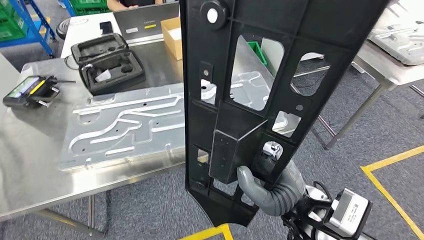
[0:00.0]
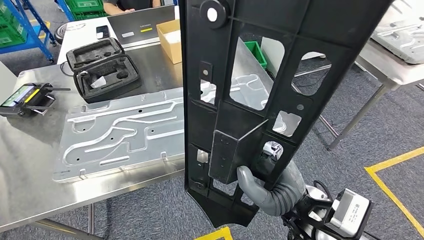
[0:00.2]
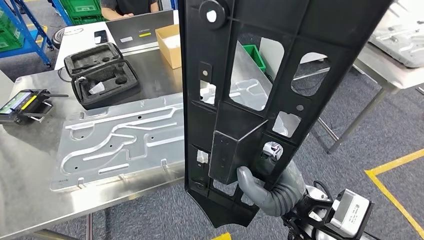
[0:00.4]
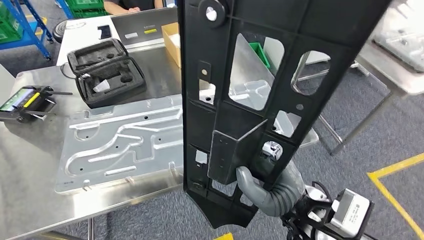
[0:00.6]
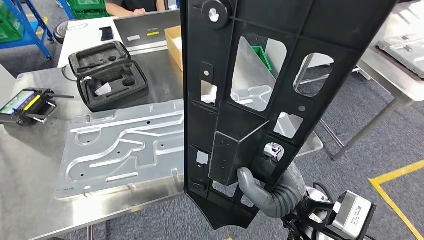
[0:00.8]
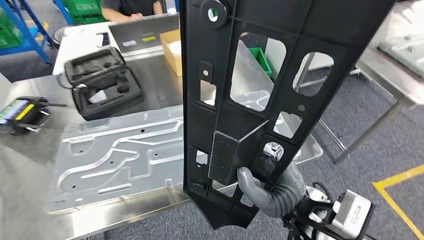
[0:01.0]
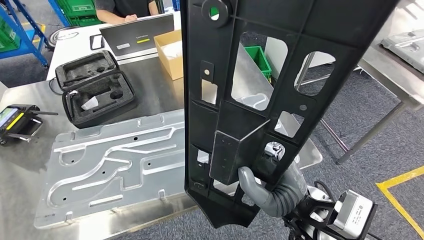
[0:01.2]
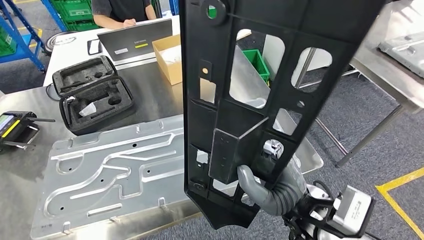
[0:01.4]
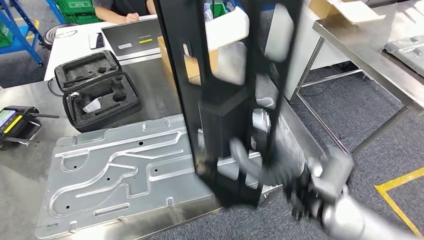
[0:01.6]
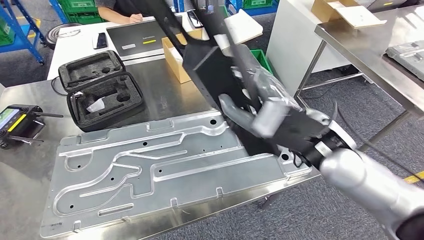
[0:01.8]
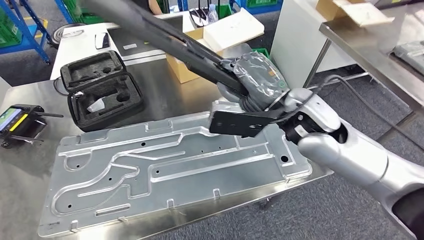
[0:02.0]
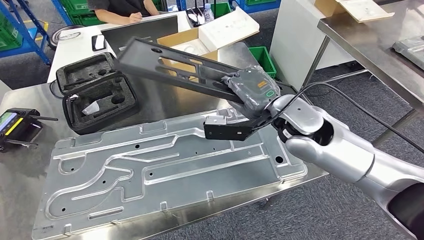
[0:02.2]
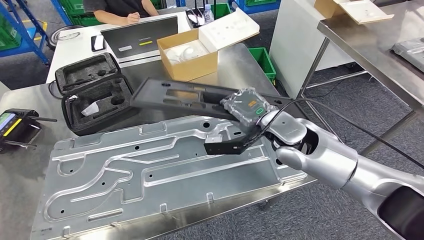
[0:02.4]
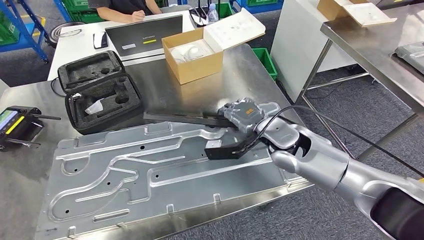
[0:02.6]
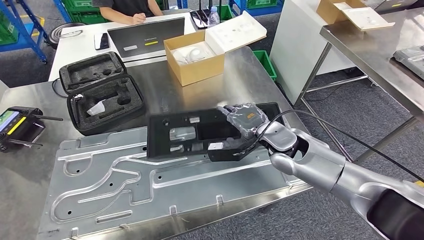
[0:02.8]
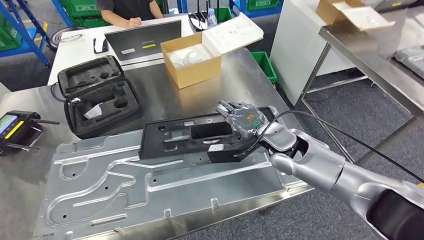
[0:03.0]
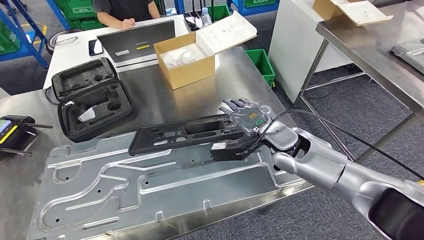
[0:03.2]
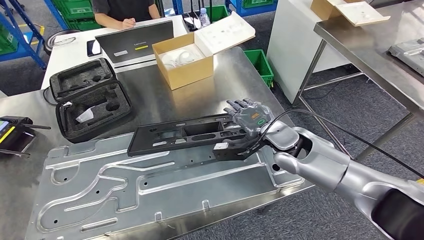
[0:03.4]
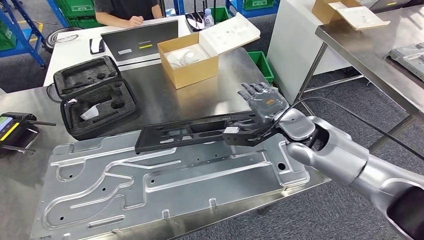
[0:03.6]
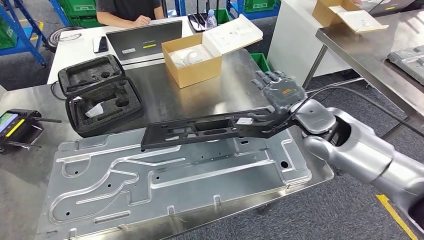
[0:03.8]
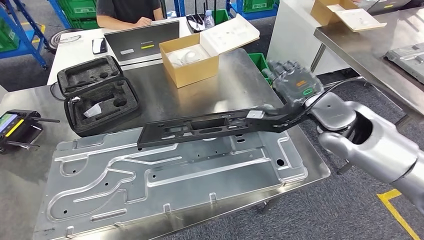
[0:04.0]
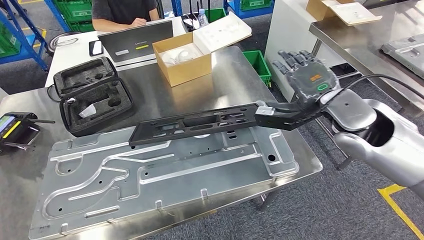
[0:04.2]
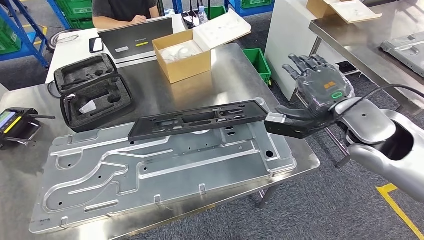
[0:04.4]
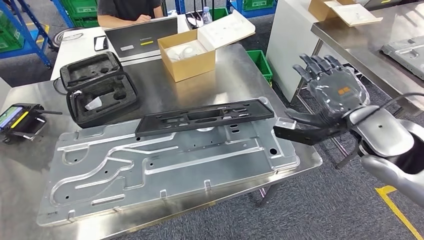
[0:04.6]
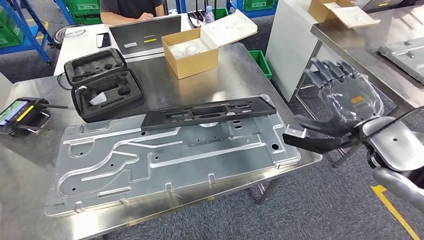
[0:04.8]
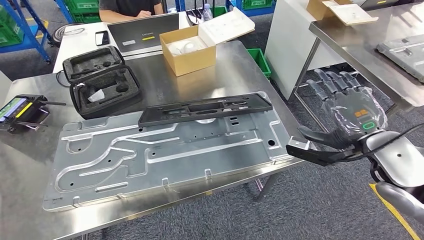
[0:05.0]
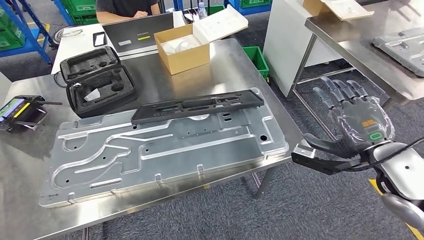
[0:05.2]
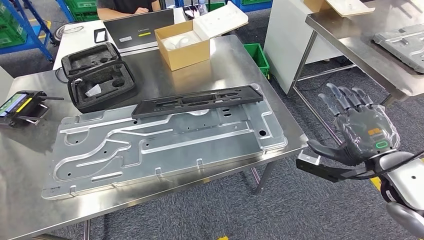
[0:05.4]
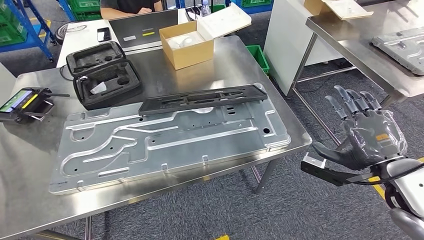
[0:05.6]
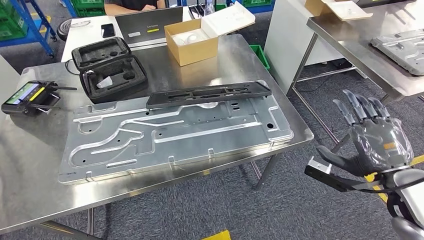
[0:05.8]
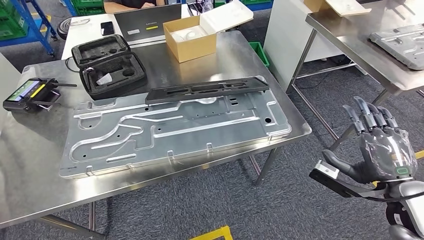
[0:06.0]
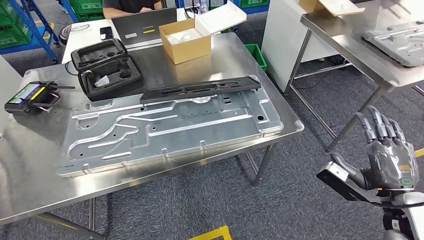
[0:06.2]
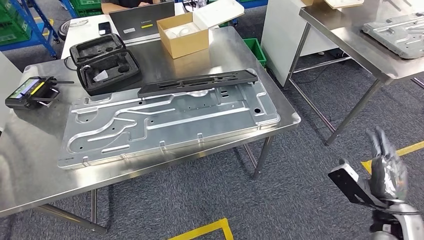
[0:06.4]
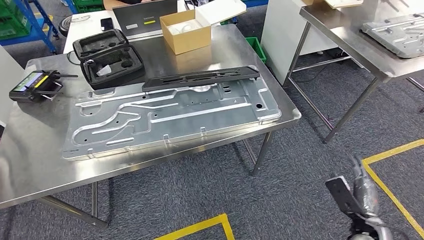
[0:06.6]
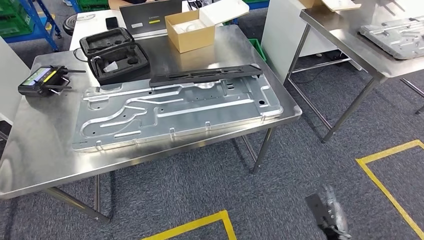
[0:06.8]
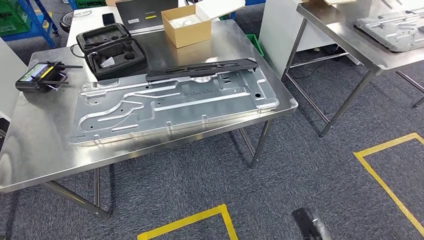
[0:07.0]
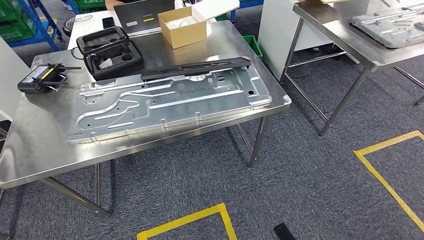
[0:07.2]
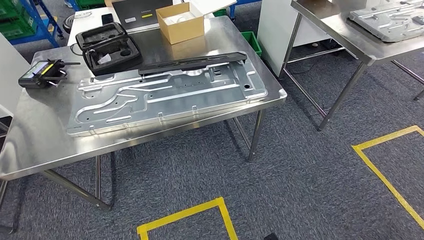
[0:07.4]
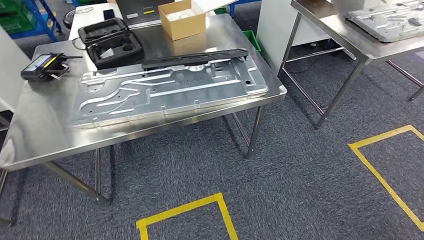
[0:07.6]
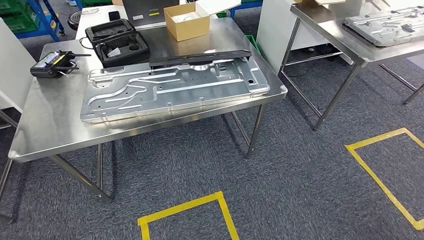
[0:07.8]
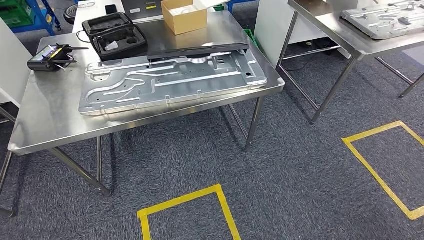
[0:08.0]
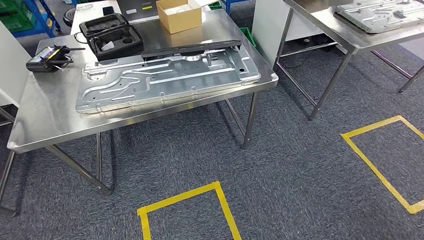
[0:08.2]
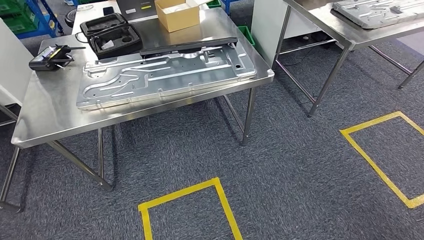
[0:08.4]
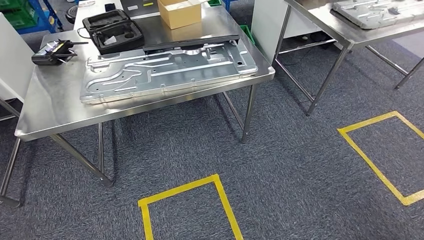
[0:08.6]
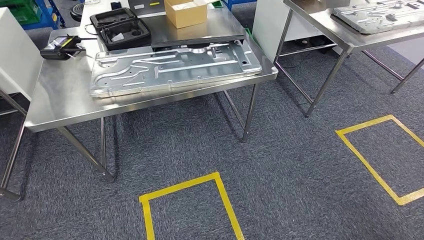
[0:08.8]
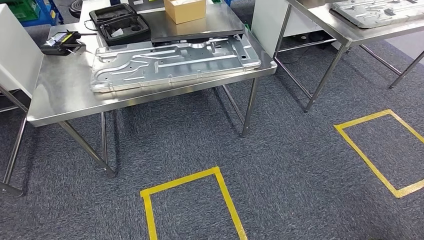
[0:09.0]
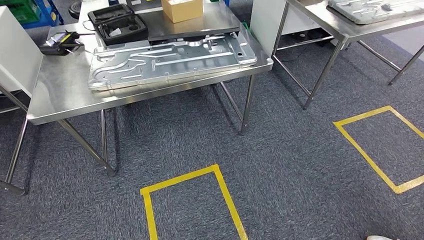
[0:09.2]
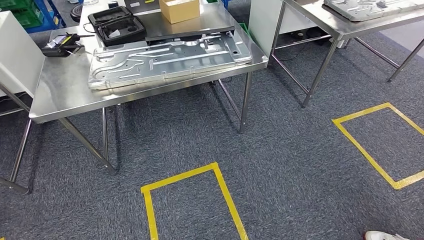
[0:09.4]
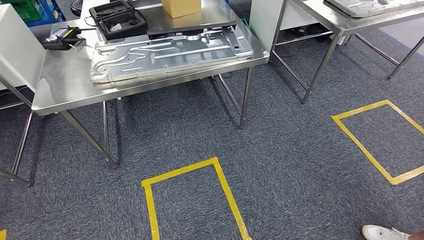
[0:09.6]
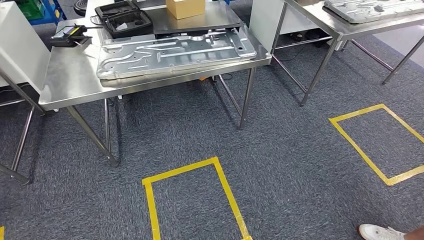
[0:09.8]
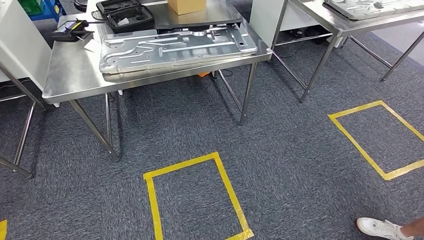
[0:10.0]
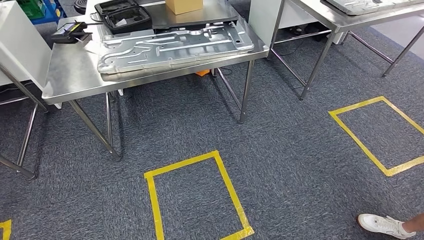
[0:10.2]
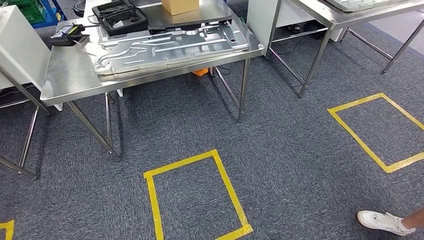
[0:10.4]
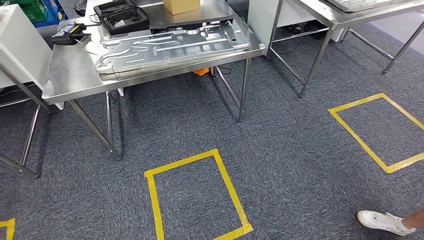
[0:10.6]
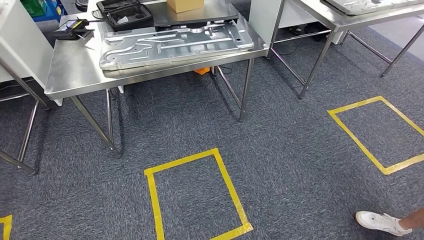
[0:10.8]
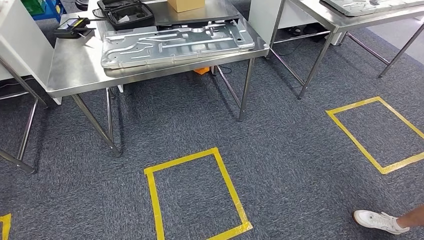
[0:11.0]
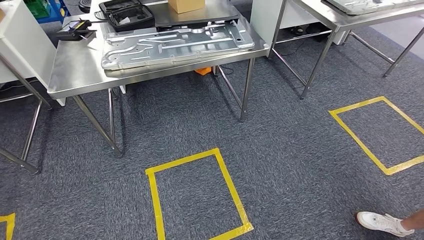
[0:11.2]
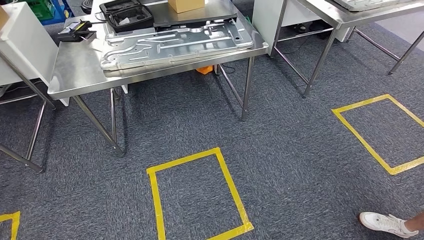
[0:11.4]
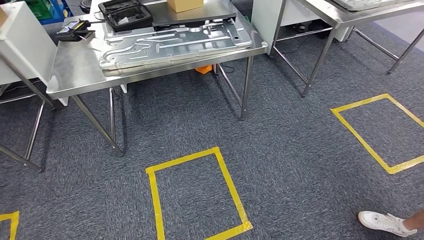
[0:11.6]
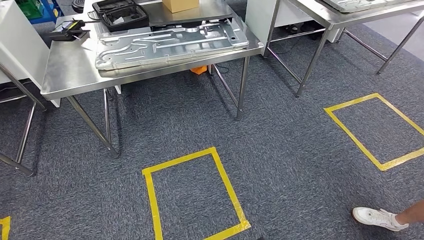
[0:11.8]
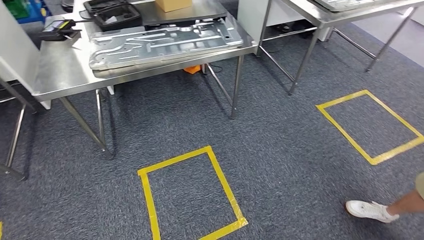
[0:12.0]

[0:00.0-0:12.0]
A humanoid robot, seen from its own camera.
Step, 0:00.0 to 0:06.4: Insert the large parts into the corresponding slots on the workbench.

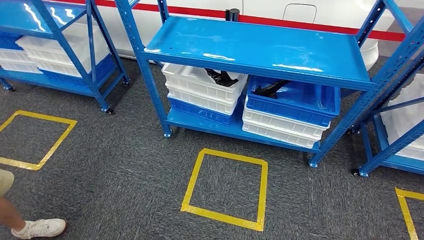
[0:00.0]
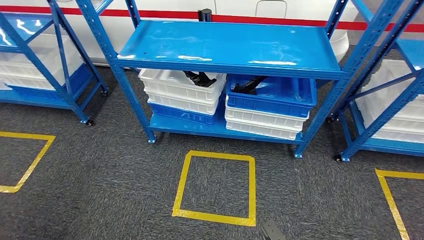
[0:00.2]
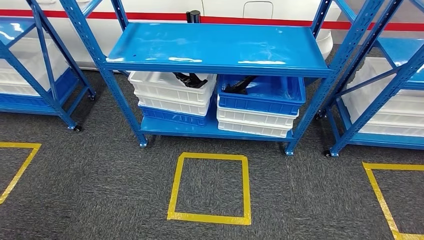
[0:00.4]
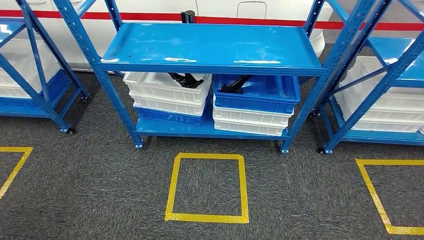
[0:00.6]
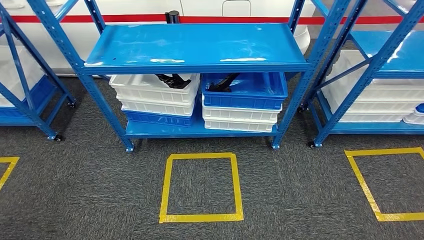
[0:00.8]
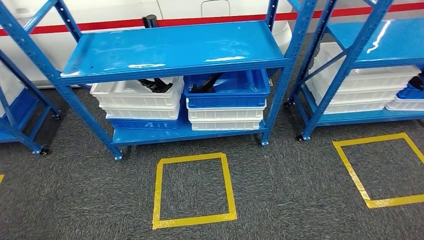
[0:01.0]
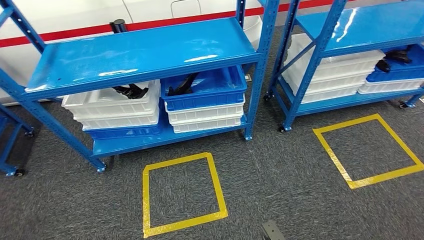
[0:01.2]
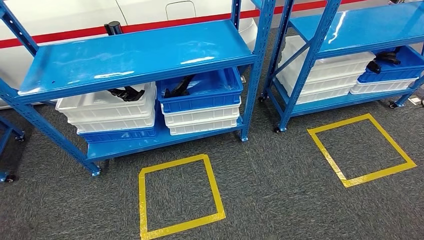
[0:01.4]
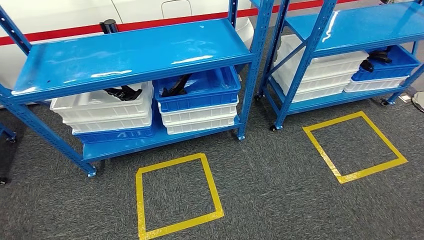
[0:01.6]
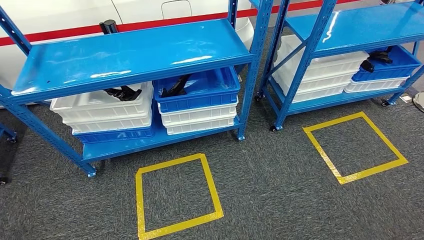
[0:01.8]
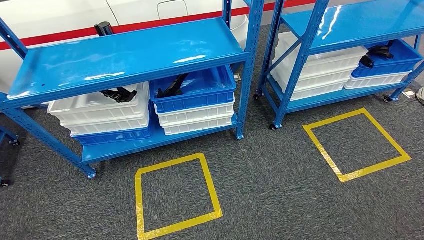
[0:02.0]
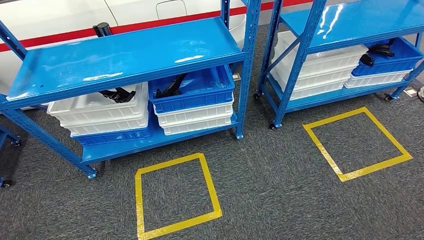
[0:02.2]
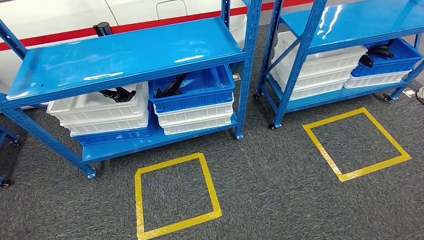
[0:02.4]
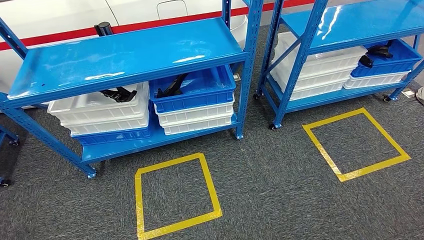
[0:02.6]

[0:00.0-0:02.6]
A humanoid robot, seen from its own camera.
Step, 0:00.0 to 0:02.6: Return to the initial position at the shelf.
